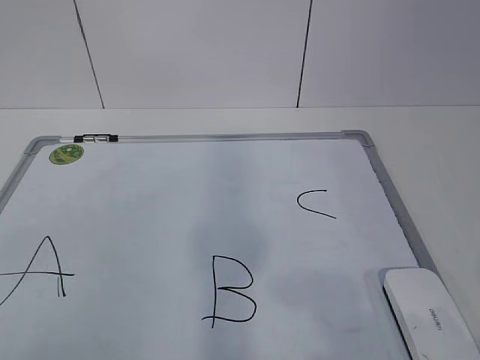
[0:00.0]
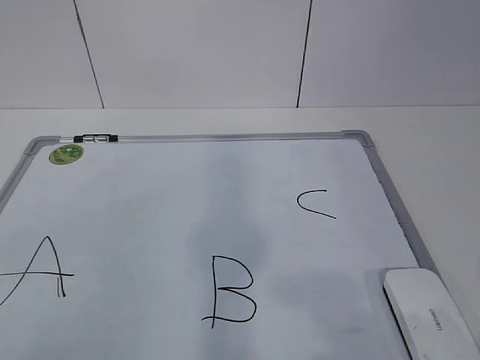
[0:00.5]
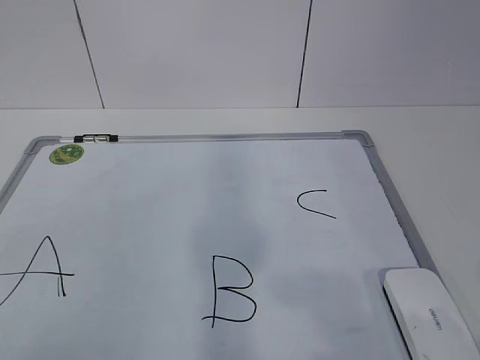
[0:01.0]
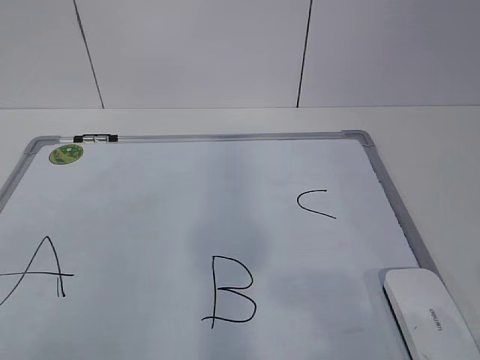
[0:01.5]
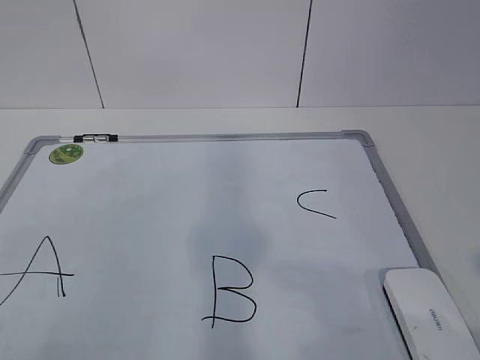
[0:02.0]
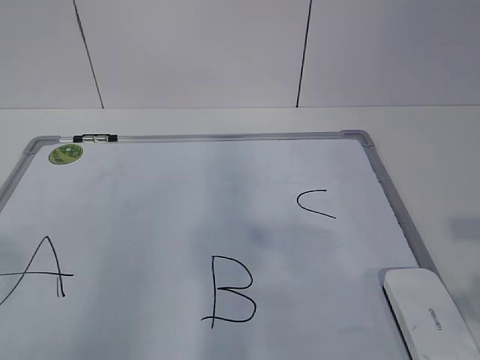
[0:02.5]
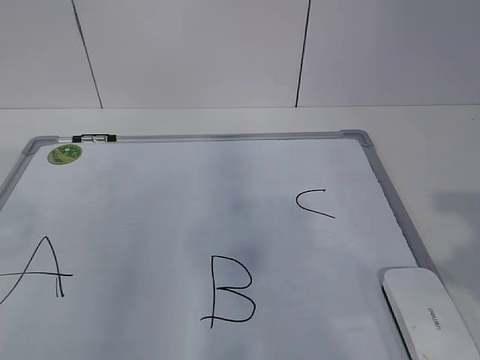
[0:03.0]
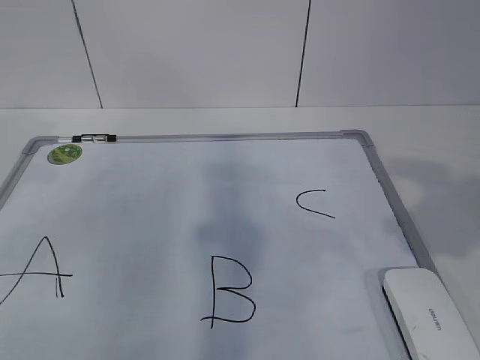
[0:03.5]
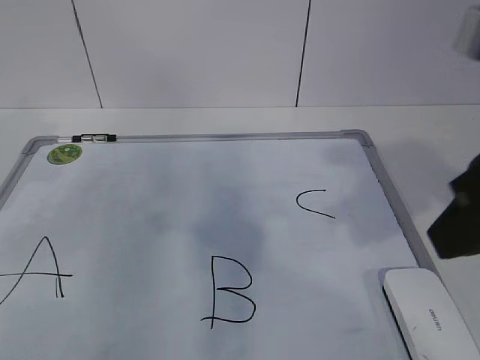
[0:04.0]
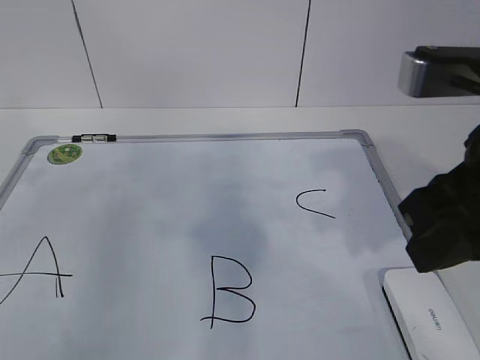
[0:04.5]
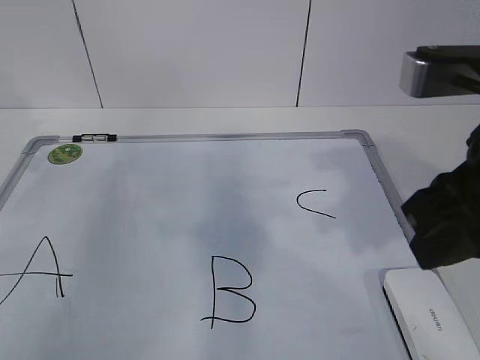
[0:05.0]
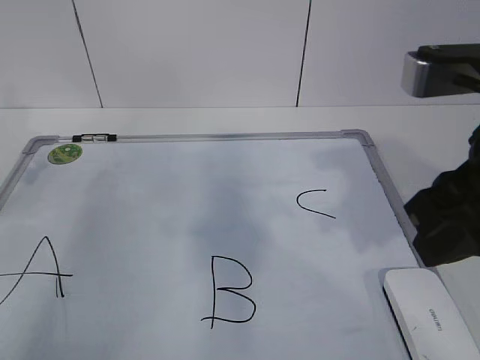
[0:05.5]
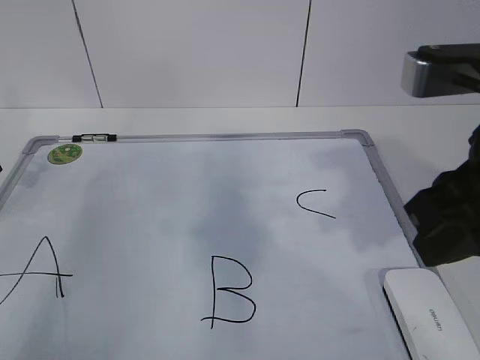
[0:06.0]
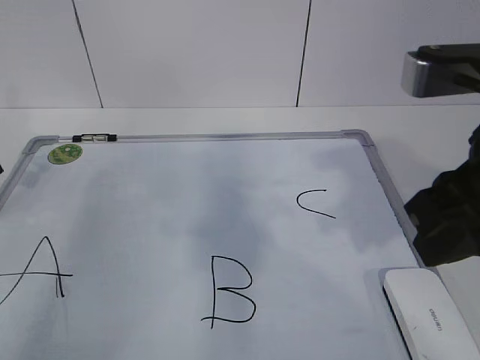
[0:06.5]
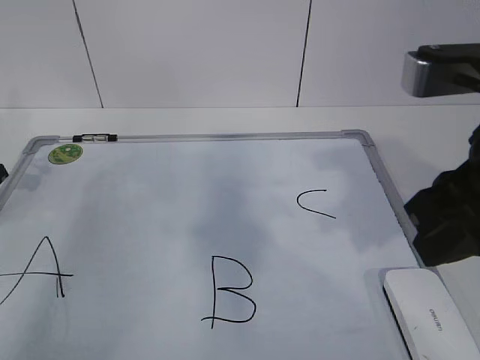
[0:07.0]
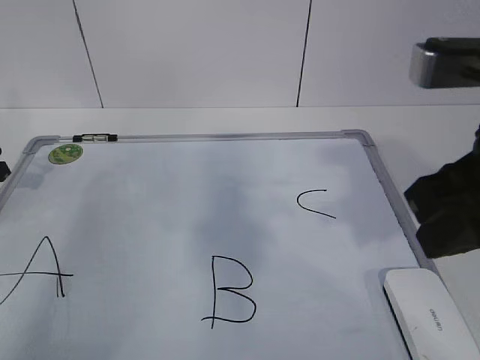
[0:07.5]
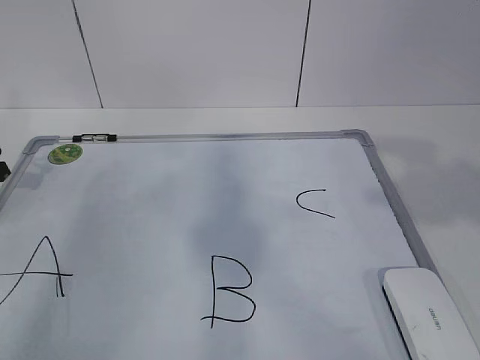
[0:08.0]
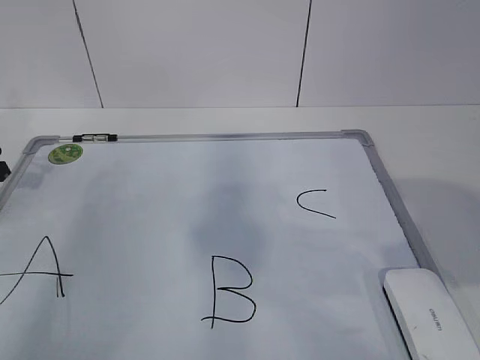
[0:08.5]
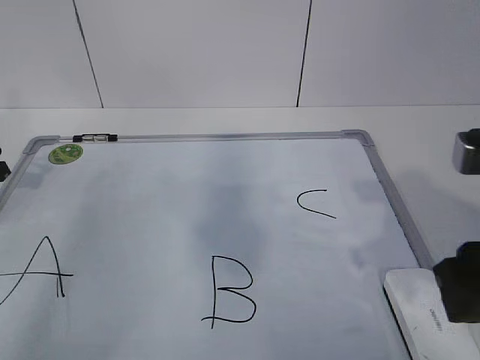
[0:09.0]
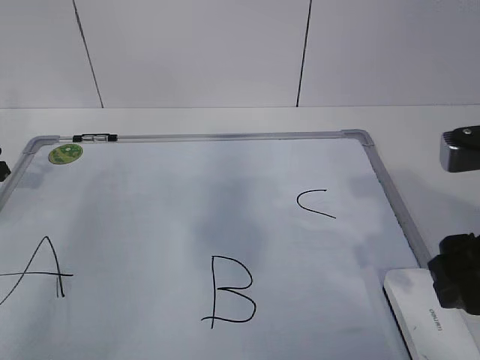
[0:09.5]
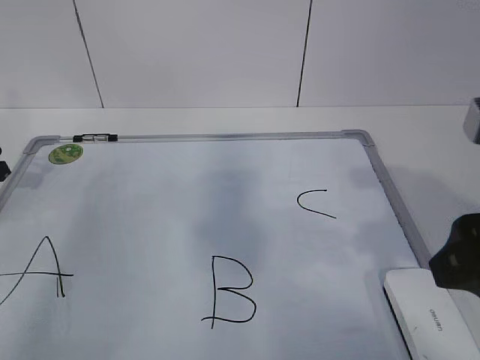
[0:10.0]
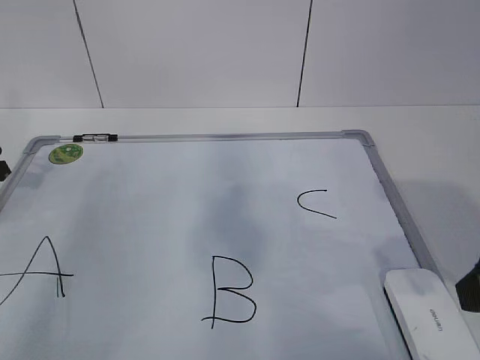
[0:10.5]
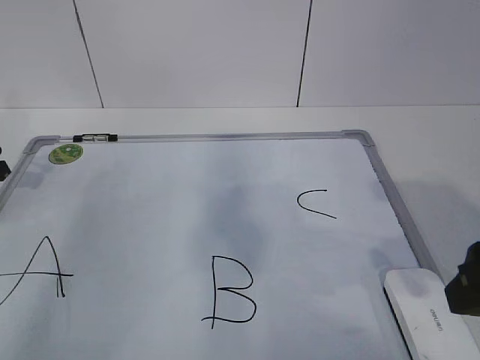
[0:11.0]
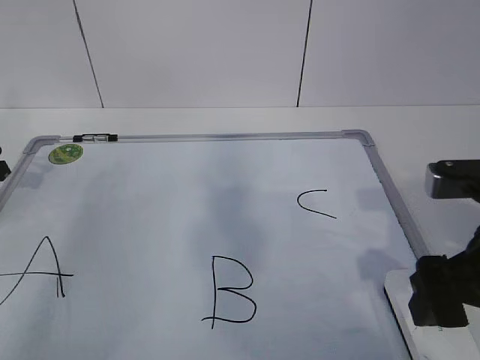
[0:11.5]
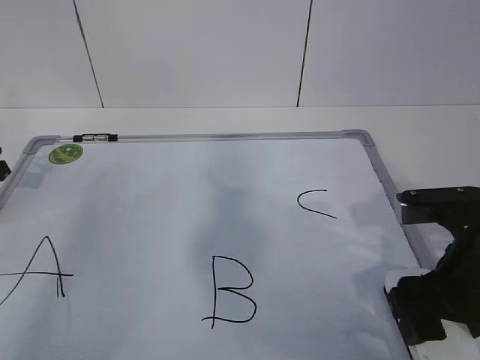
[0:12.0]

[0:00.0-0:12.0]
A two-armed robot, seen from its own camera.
Task of the whole recording: pick up the eraser on the blackboard and erase the letter "B".
Step, 0:00.0 to 0:06.0: Hold the drawing board steady with your left hand.
Step, 0:06.5 to 0:10.5: Grab the eraser with your right hand.
0:02.0 to 0:04.0: The left gripper goes about 30 cm forward, while the right gripper goes about 20 cm forward, to the left and upward.
0:04.0 to 0:06.0: The left gripper heads downward and forward, covering approximately 15 cm.
0:06.0 to 0:08.0: The right gripper goes some 10 cm upward, backward and to the right.
0:08.0 to 0:10.0: The right gripper is displaced downward by about 10 cm, and opens up.
0:10.0 to 0:12.0: The right gripper goes about 10 cm downward.

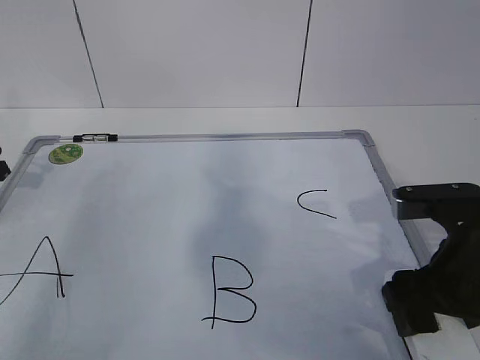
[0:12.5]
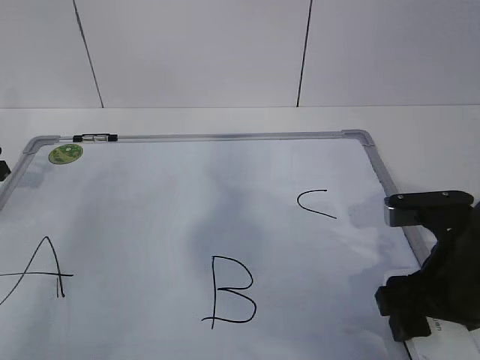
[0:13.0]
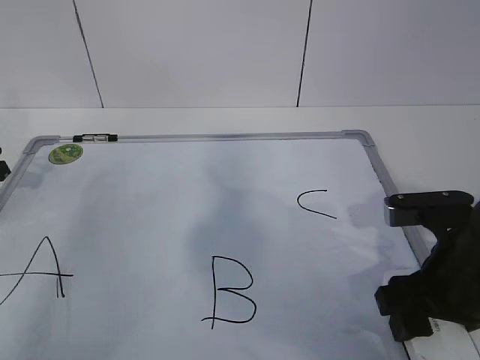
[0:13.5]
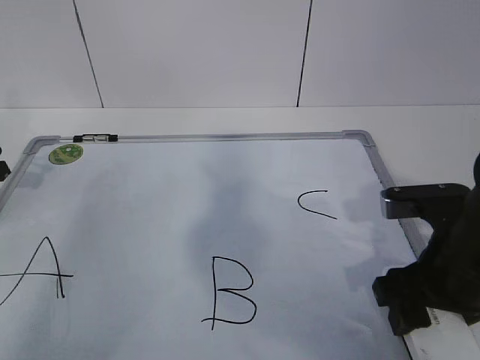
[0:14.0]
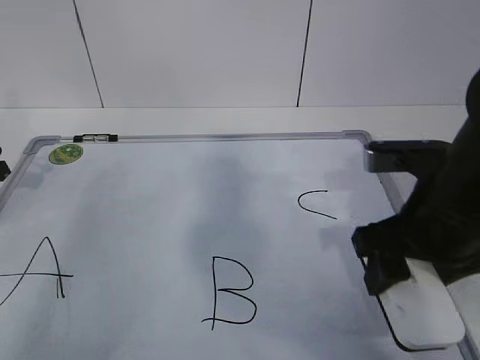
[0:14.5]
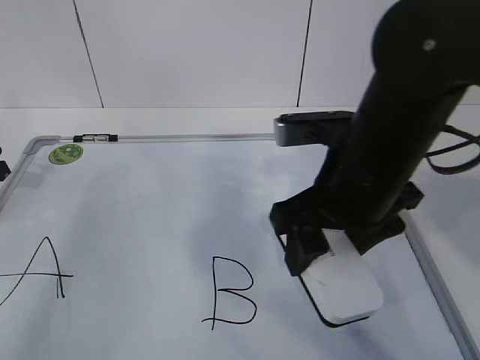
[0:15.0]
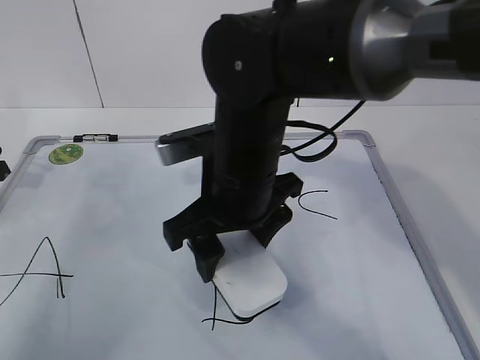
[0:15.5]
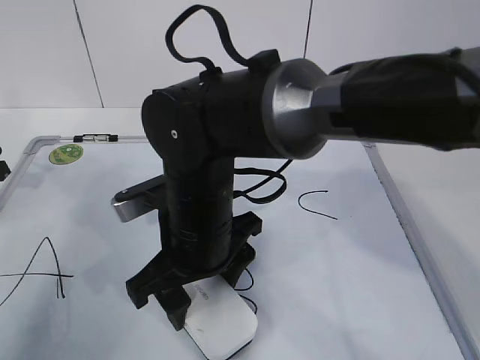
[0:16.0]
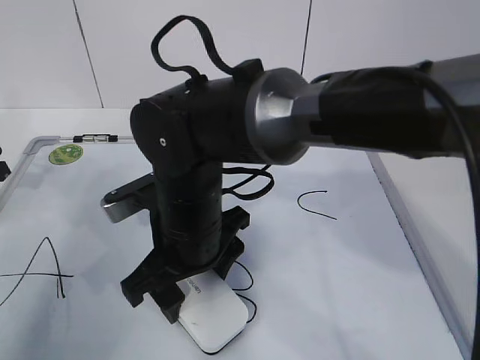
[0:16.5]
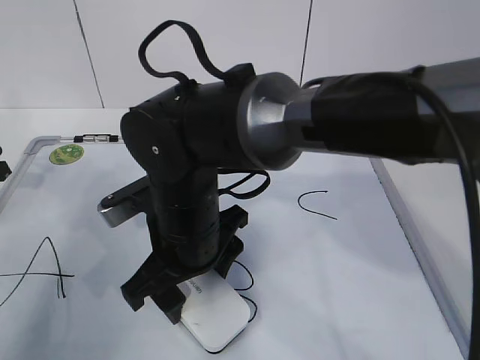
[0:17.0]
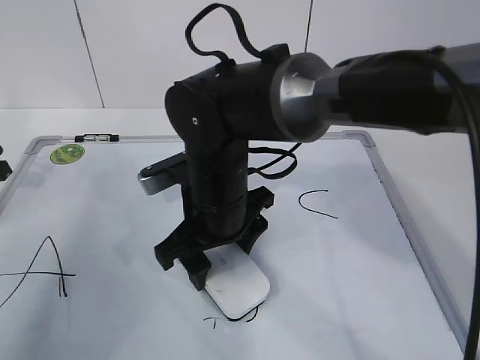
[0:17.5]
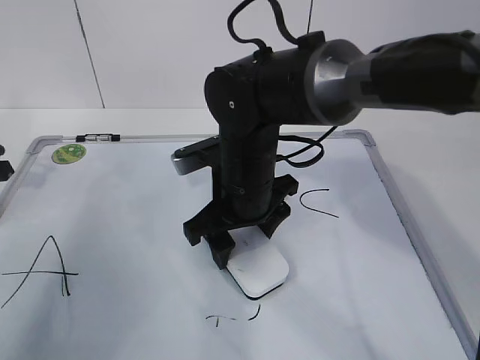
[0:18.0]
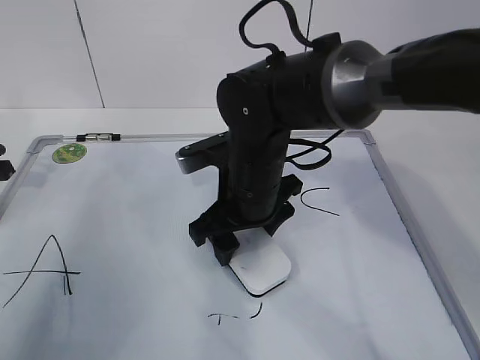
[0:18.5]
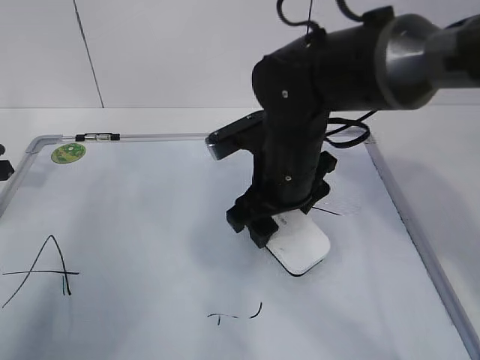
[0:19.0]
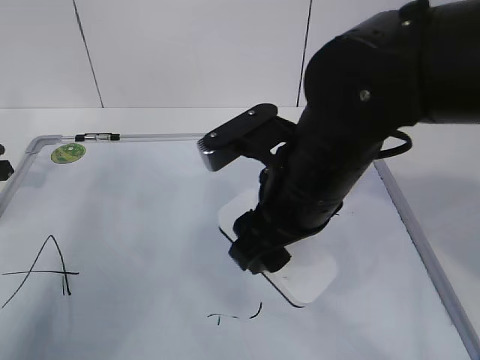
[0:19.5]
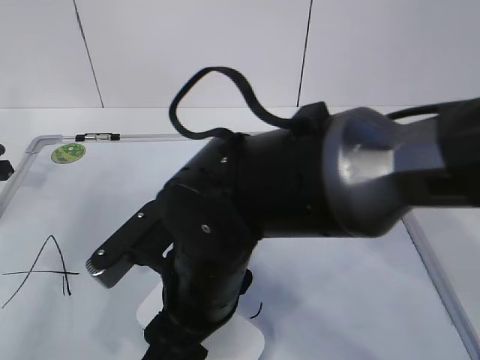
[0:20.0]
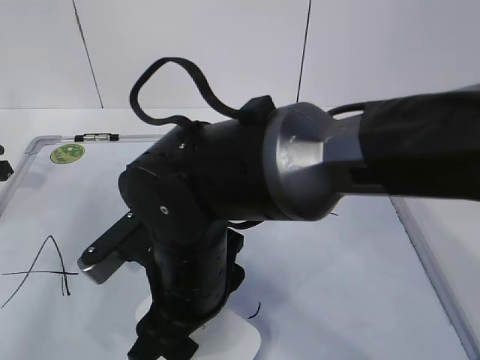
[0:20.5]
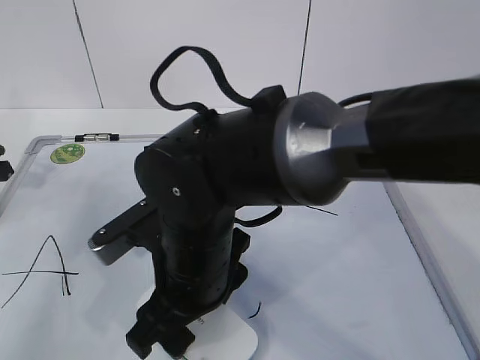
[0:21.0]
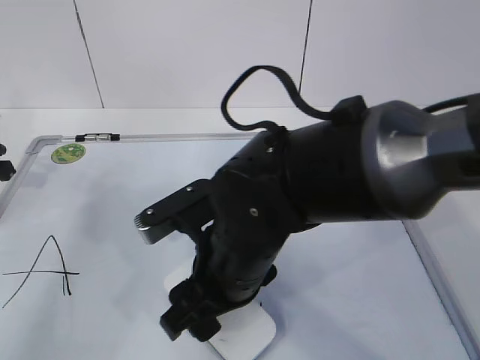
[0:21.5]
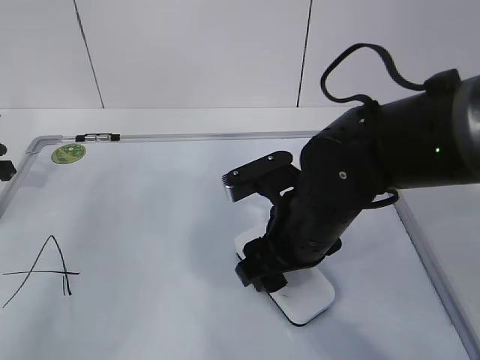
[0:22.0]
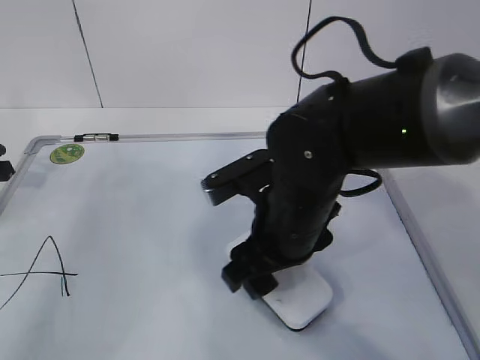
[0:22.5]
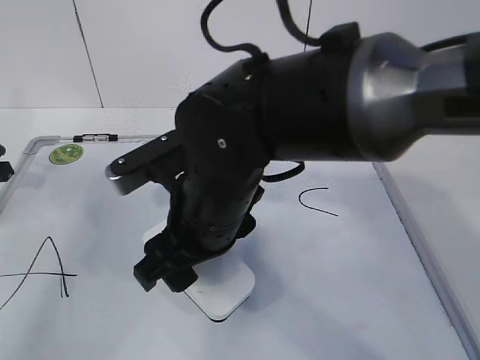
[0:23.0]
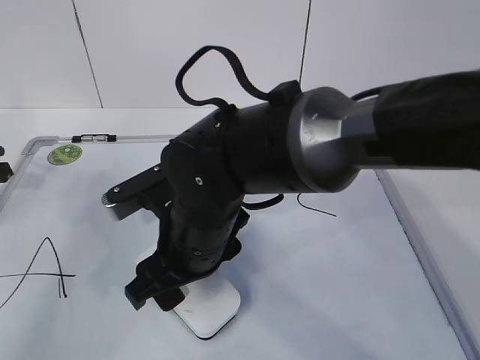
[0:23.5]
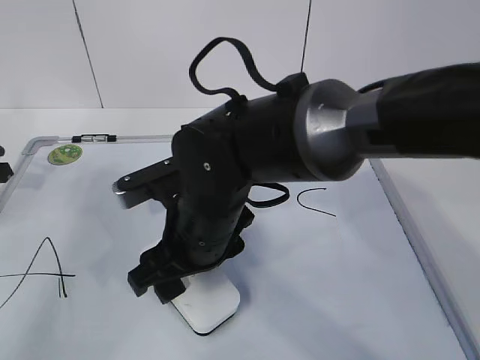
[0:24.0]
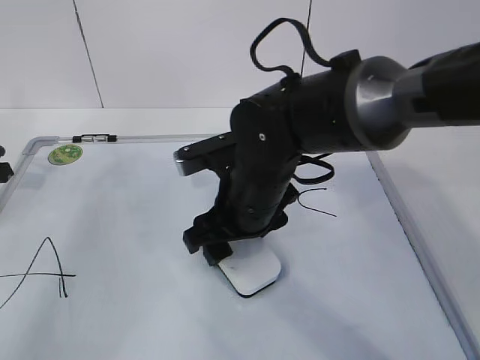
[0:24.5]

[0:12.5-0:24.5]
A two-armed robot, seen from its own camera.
Task of the whole recording: pick up the eraser on the blackboard and erase the letter "B".
Step, 0:12.5 to 0:20.5: Erase the letter B with your right hand.
0:12.5 to 0:14.5: There are only small adjustments of the grippers.
0:14.5 to 0:16.5: The right gripper goes some 20 cm to the left.
0:16.5 to 0:18.5: The right gripper goes some 10 cm to the right and forward.
0:18.5 to 0:20.5: The right gripper goes approximately 10 cm backward and to the left.
0:20.5 to 0:22.5: The right gripper moves to the right, some 10 cm.

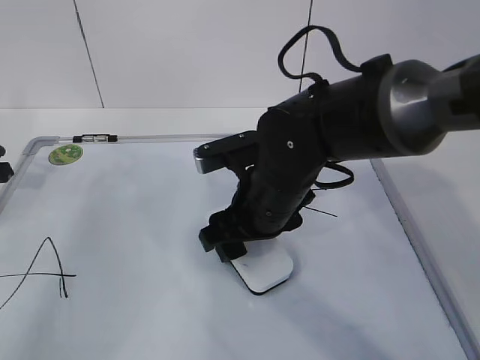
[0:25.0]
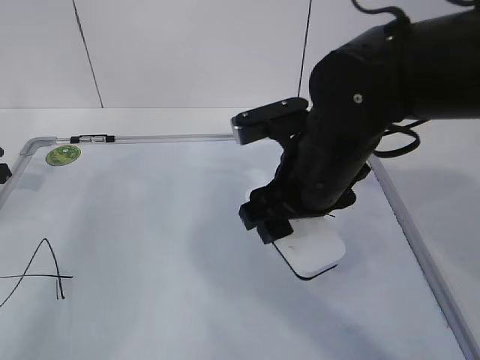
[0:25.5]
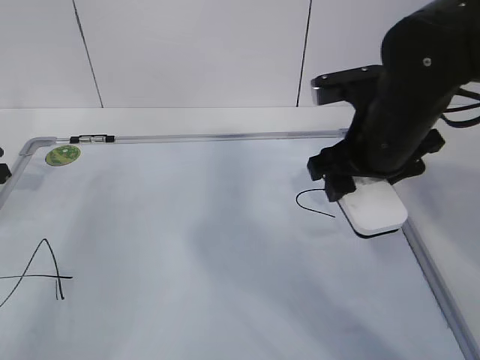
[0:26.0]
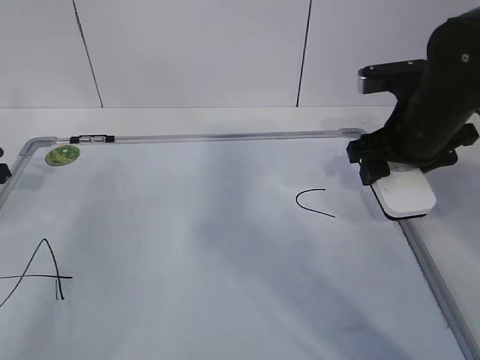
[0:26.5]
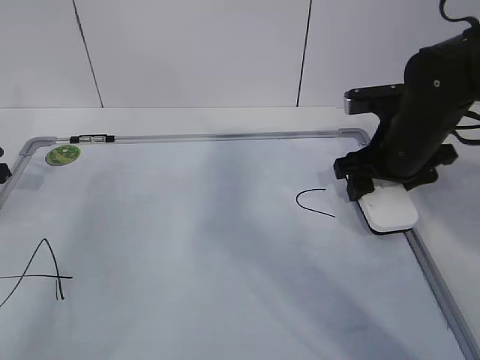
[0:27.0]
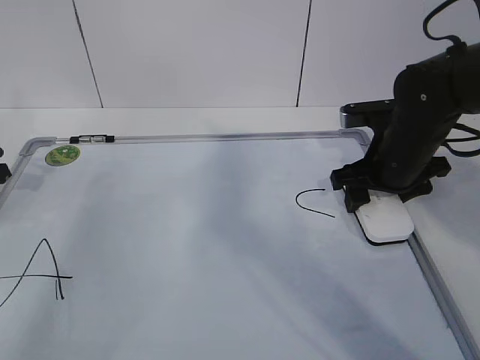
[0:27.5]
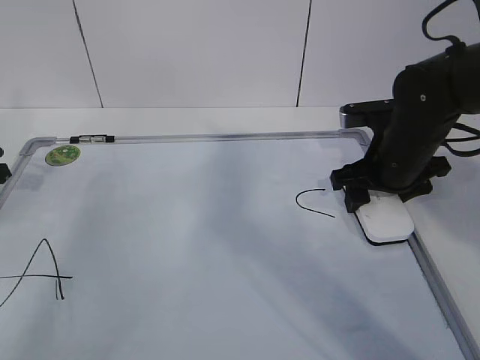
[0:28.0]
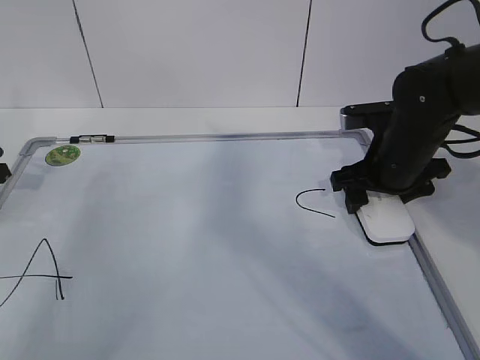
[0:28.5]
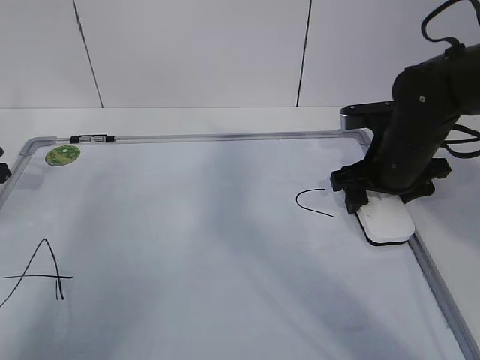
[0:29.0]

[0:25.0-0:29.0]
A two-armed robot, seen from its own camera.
Task of the whole recording: pick up the eraser on the blackboard and erase the letter "B".
0:25.0 to 0:27.0: The right gripper shifts some 15 cm to the right.
0:27.0 to 0:29.0: The grippers make only small movements.
